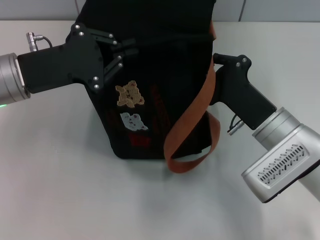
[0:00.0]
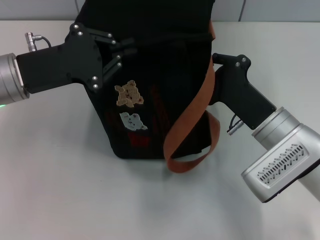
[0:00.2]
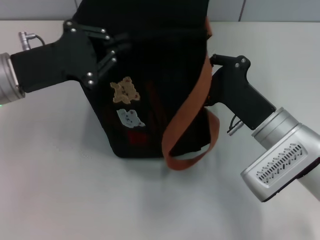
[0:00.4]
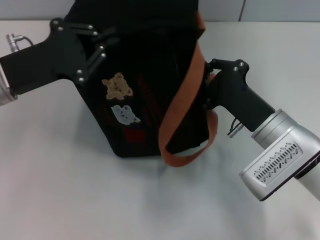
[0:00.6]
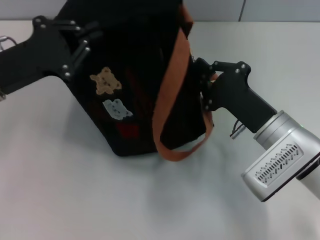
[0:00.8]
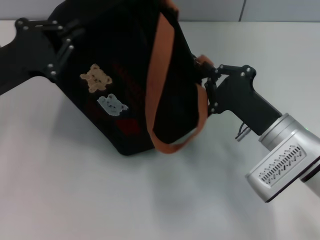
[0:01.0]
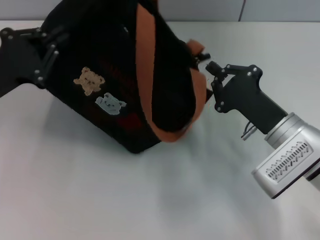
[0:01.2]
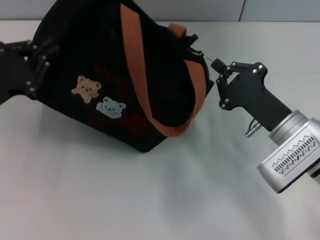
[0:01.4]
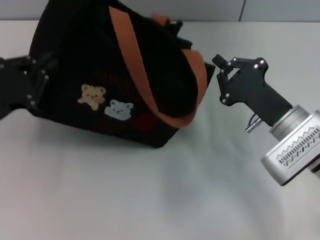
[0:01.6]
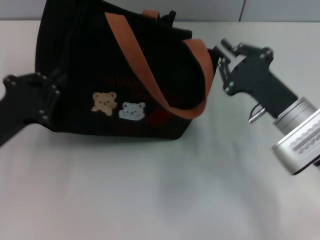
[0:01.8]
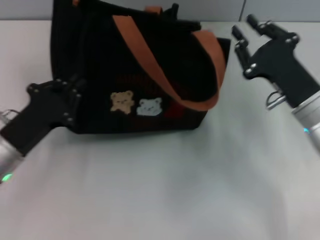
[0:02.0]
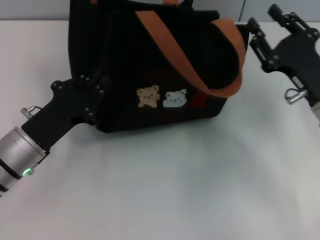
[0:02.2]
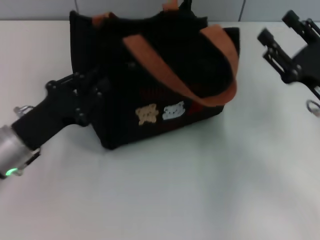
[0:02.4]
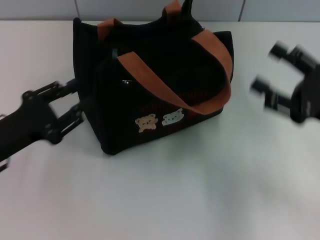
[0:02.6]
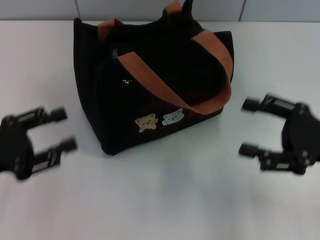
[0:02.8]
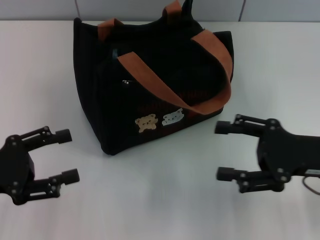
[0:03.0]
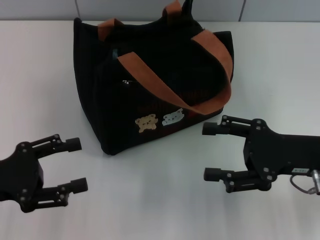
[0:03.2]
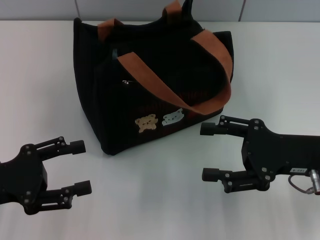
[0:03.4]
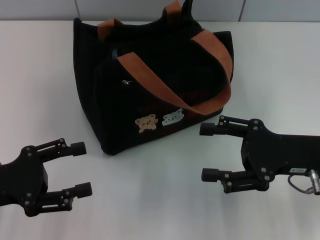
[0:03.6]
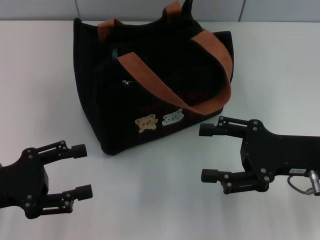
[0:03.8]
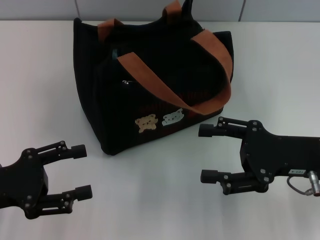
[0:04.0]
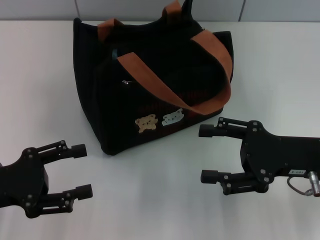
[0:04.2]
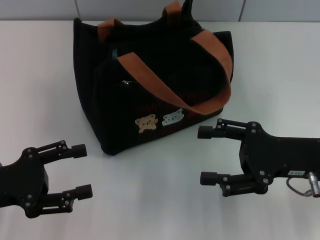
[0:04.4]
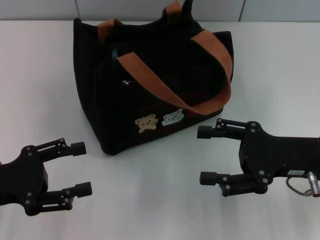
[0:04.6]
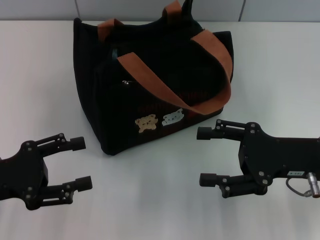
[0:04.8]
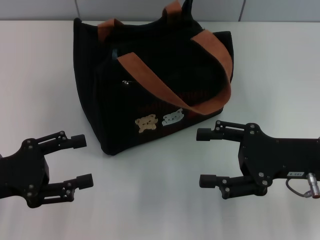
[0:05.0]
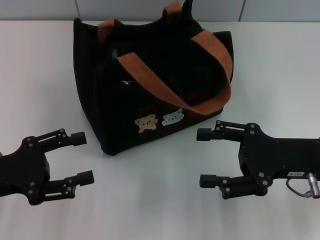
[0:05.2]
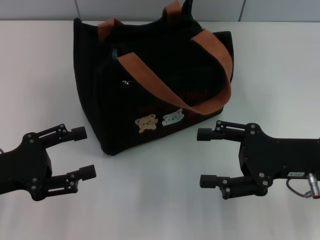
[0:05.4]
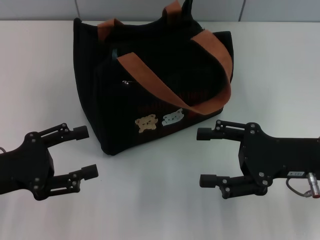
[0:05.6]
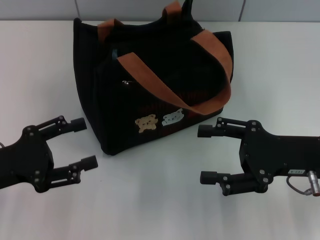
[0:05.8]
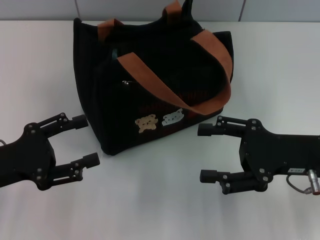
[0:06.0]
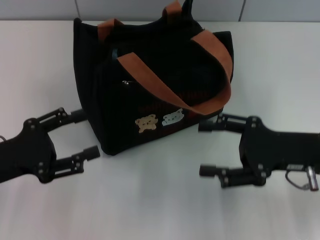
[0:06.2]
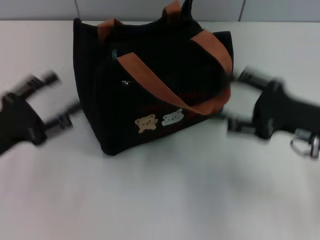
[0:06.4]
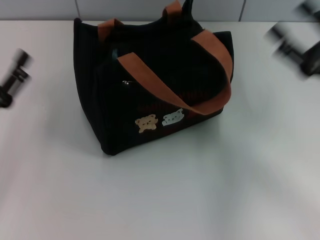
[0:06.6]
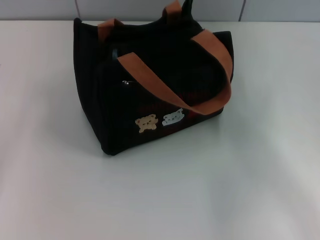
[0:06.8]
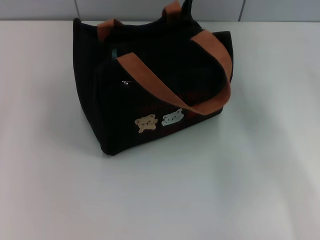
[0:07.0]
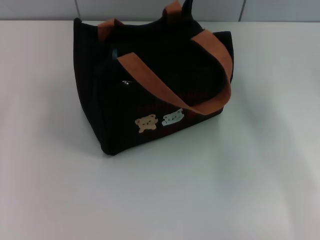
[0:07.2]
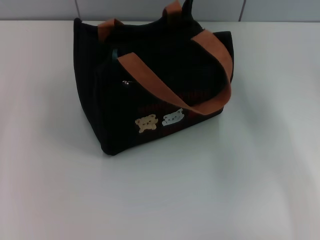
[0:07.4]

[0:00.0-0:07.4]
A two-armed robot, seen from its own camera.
Step, 0:02.0 to 0:02.6: Grab the bag with your left hand.
0:00.0 to 0:01.4: The left gripper goes about 5 cm to the left.
0:01.4 to 0:03.0: The right gripper moves to the right and upward, roughly 10 cm, and opens, while the left gripper travels backward by some 5 cm, goes to the right and returns, some 10 cm each way, and opens up.
0:03.0 to 0:06.0: The grippers make only small movements.
0:06.0 to 0:07.4: The right gripper is displaced to the right and forward by approximately 10 cm.

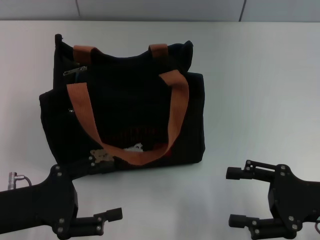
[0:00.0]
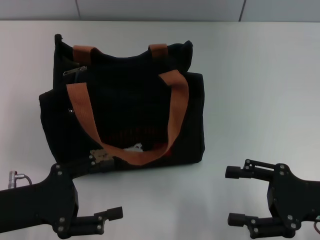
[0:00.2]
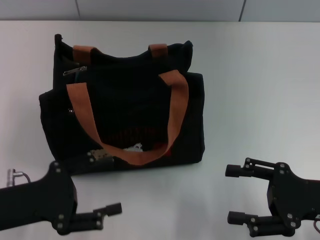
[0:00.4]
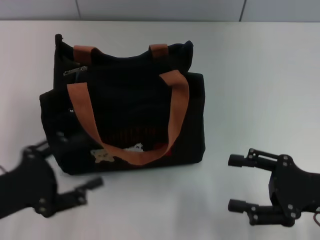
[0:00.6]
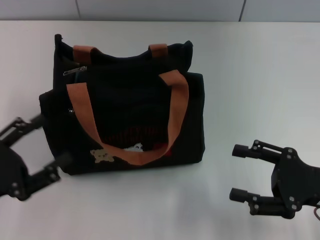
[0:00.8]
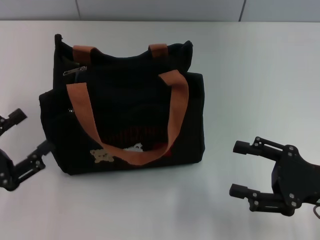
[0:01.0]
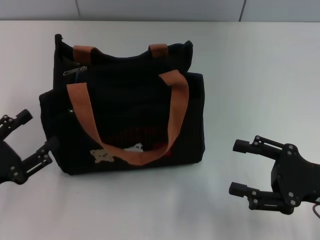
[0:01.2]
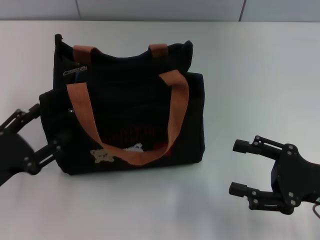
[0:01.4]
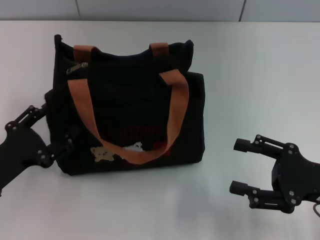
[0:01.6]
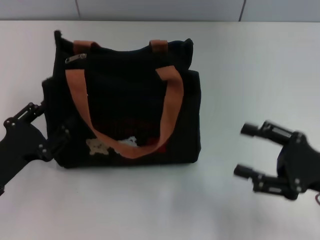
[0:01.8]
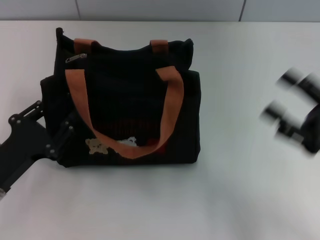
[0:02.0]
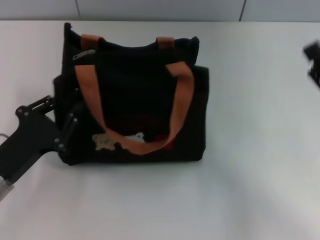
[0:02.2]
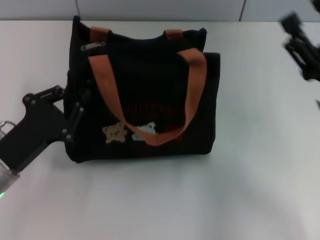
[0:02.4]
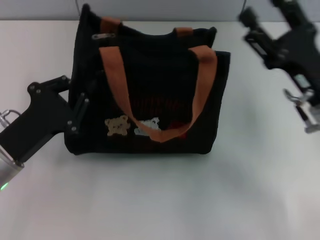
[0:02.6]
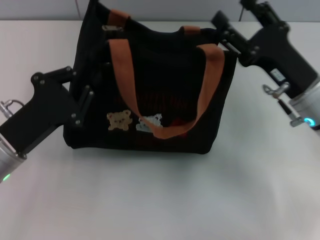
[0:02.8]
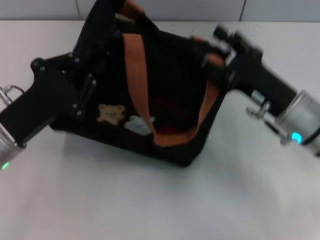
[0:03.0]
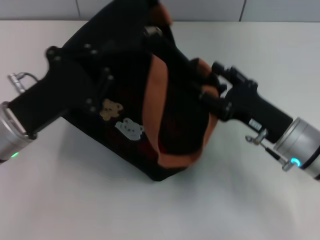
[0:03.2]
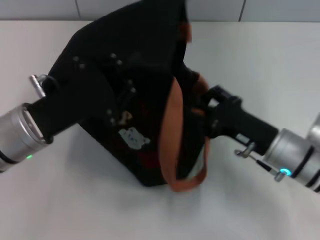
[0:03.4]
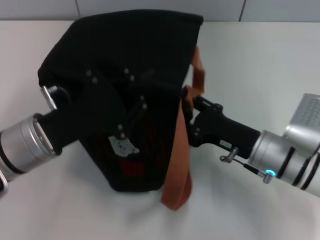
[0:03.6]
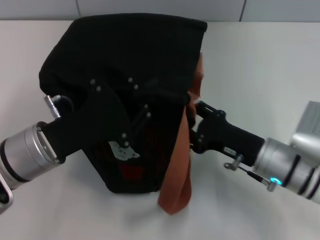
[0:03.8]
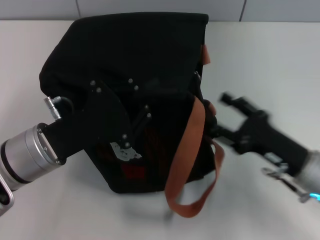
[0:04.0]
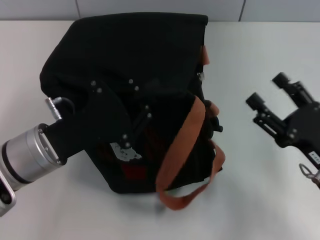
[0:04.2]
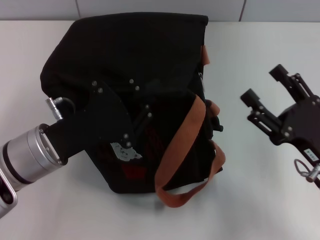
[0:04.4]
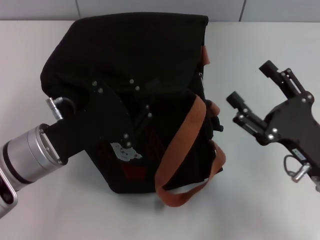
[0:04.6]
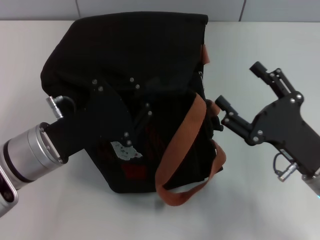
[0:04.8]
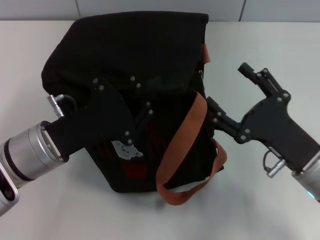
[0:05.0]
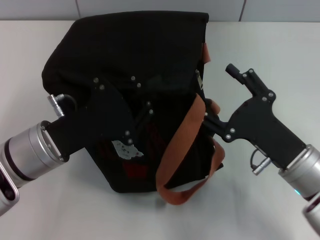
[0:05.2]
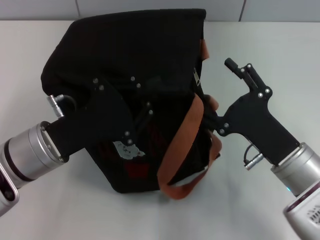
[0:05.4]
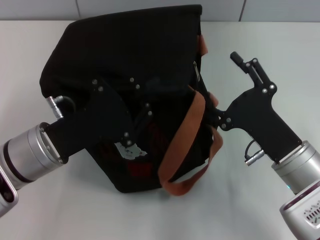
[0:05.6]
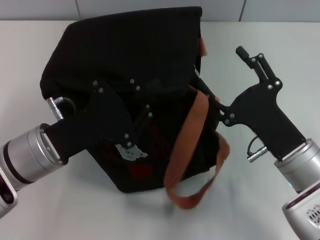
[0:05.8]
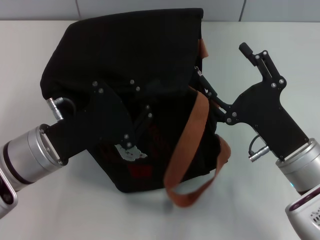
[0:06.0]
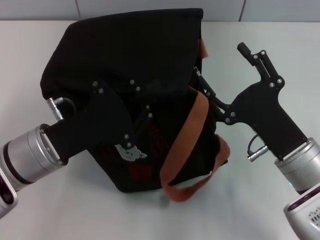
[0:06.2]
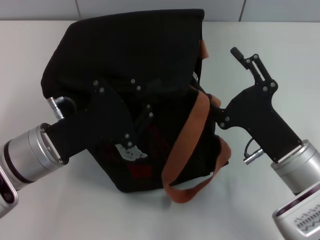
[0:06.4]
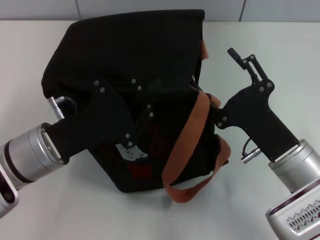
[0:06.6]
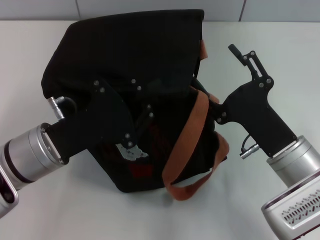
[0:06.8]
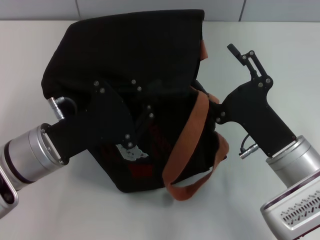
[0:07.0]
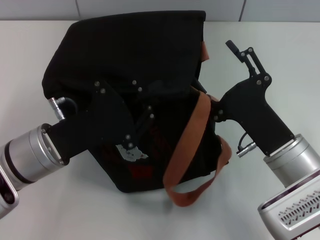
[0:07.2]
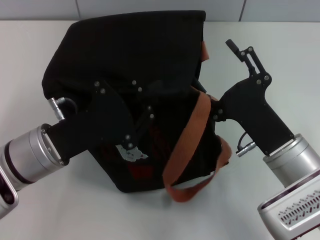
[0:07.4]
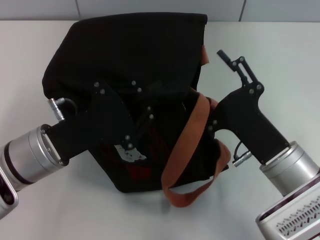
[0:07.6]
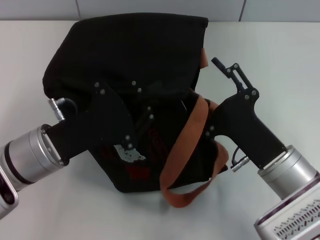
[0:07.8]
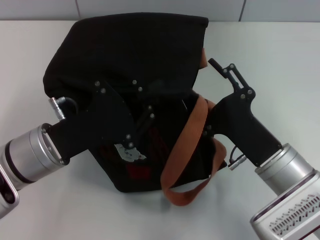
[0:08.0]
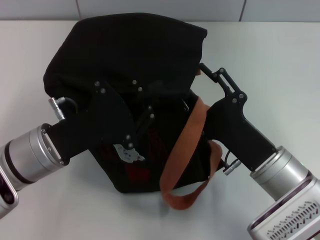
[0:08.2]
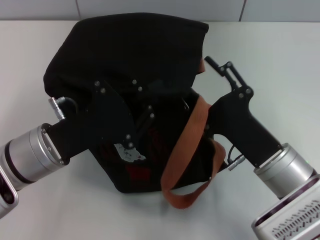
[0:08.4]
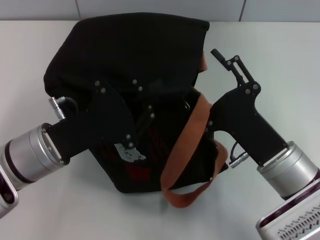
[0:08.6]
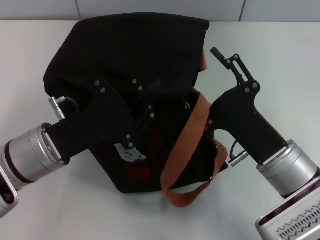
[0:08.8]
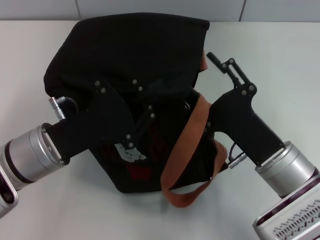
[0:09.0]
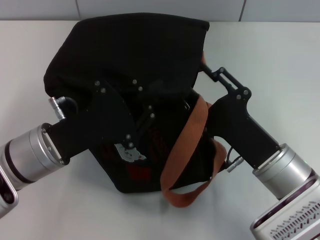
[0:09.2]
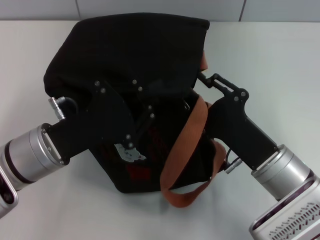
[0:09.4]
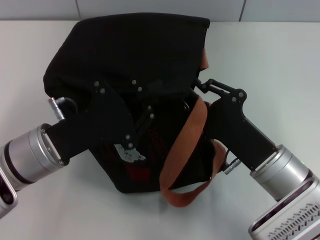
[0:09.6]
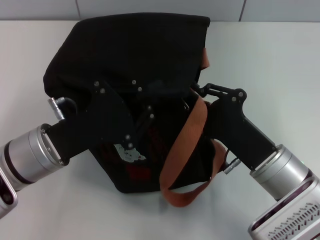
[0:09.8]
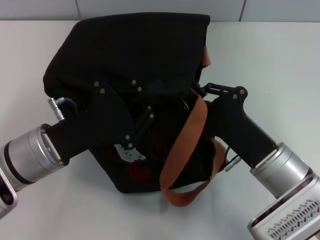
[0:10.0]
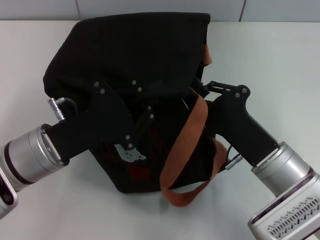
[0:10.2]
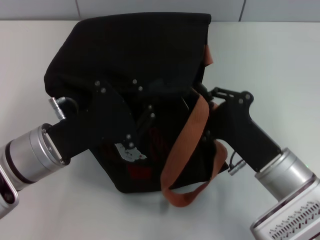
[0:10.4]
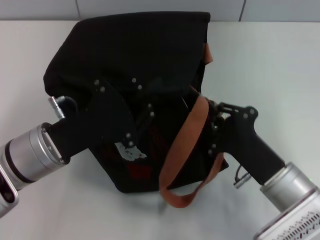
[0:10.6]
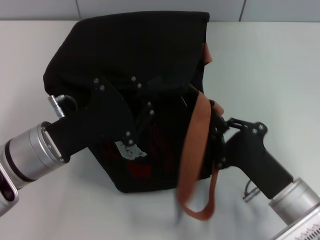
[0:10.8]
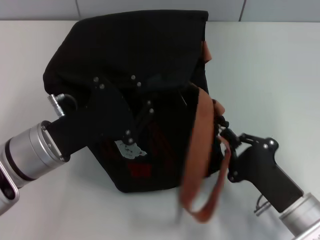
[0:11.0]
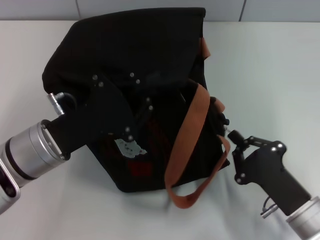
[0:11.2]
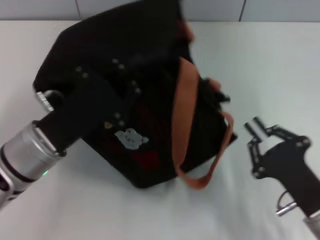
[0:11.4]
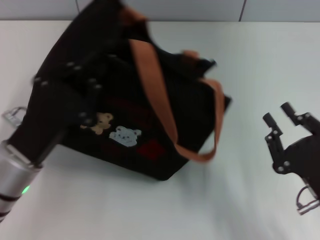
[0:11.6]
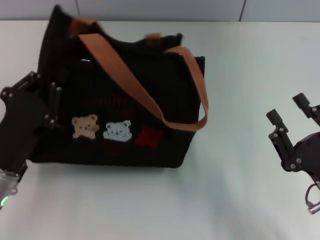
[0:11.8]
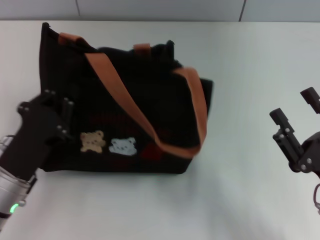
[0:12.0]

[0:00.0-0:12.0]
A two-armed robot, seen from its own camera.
Step, 0:00.0 to 0:11.4: Pull open the zipper with your right hand.
0:01.6 to 0:03.0: The right gripper is displaced forward and to the left by some 10 cm; the left gripper is displaced forward and to the right by about 10 cm, and closes its fingers.
0:03.0 to 0:04.4: The right gripper goes some 10 cm backward.
0:04.4 to 0:06.0: The right gripper heads to the left, covering approximately 5 cm.
0:06.0 to 0:07.6: The grippers make only small movements.
0:07.6 to 0:09.0: Neither gripper changes place.
0:09.0 to 0:10.4: The right gripper closes its fingers.
0:10.4 to 0:12.0: The left gripper is displaced backward by about 5 cm, while the right gripper is displaced to the right and backward by roughly 10 cm, and opens.

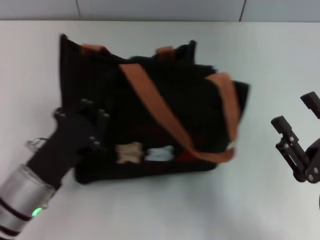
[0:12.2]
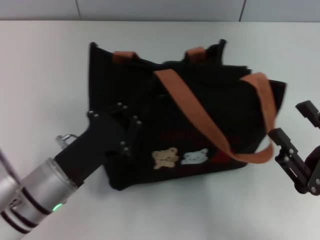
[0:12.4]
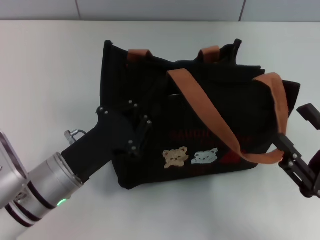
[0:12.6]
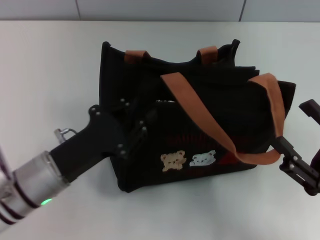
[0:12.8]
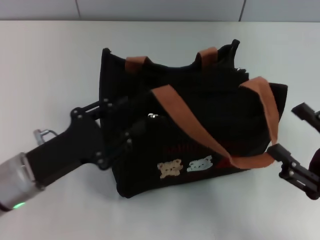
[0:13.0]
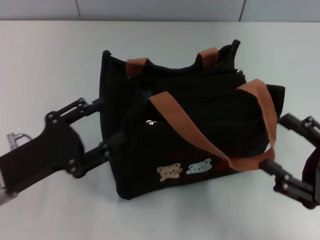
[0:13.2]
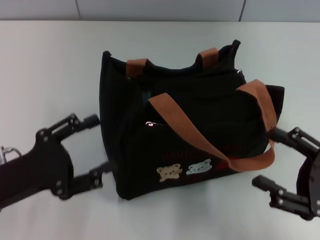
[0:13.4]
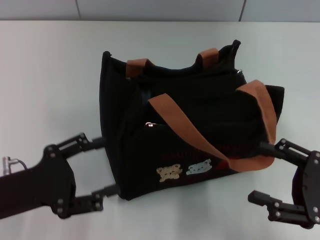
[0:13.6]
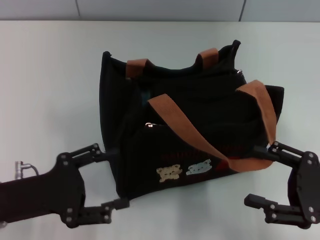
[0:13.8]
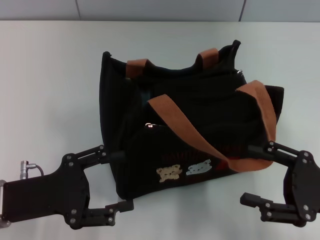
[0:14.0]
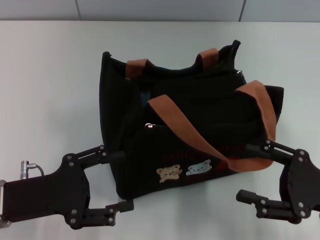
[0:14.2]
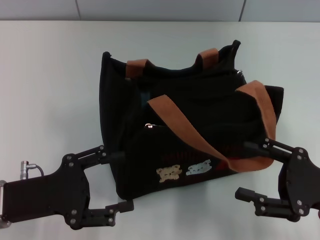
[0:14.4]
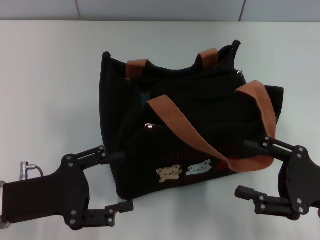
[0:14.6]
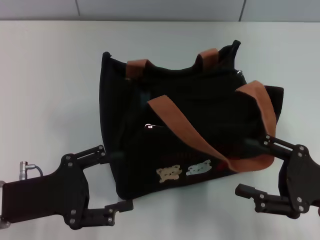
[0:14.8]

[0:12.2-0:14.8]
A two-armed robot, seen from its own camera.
Step, 0:12.2 to 0:13.2: Grab the bag with your left hand.
0:12.2 to 0:13.4: The left gripper shifts some 5 cm to the left, and opens up.
0:13.4 to 0:14.8: The grippers stay close to where they were, moving slightly.
